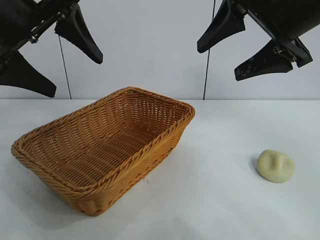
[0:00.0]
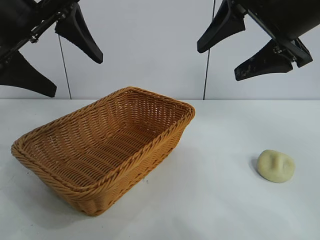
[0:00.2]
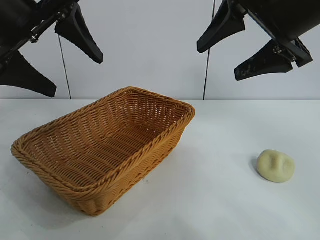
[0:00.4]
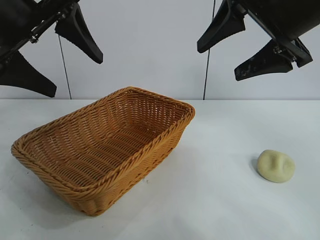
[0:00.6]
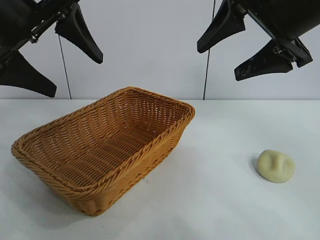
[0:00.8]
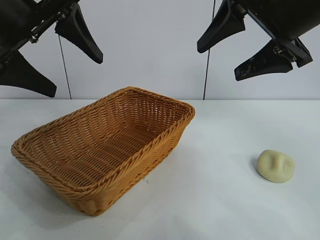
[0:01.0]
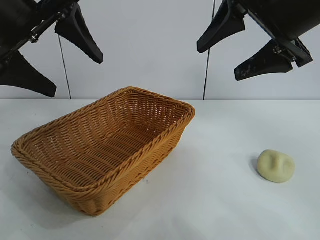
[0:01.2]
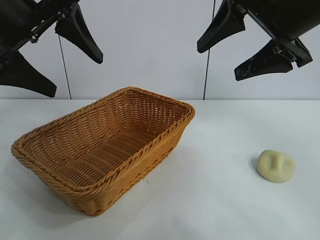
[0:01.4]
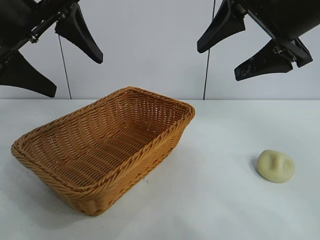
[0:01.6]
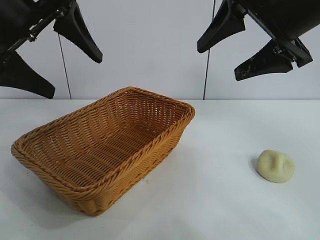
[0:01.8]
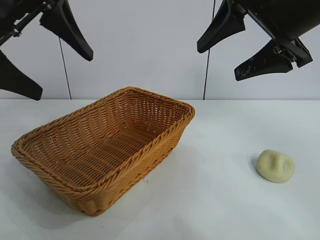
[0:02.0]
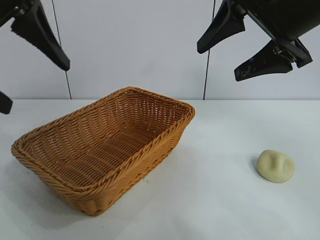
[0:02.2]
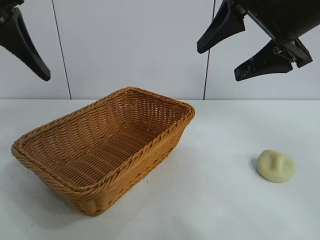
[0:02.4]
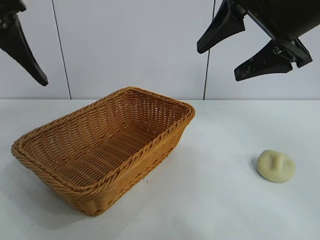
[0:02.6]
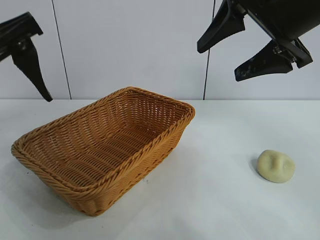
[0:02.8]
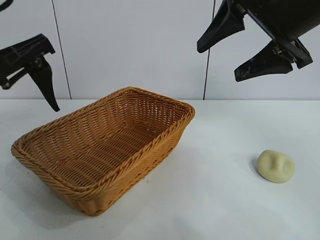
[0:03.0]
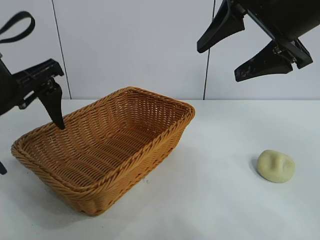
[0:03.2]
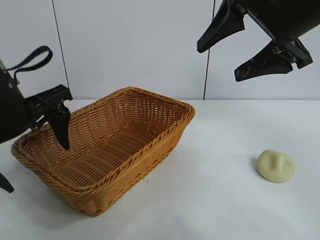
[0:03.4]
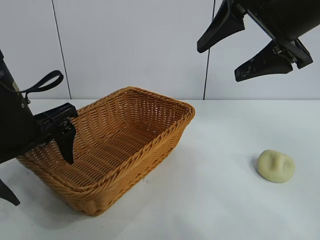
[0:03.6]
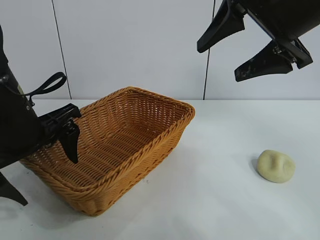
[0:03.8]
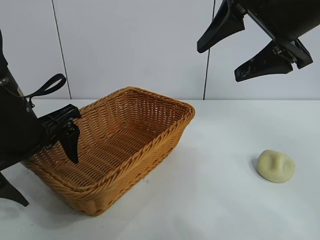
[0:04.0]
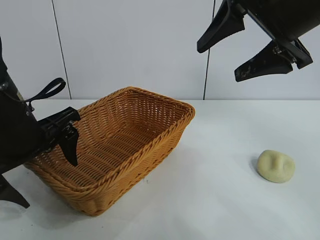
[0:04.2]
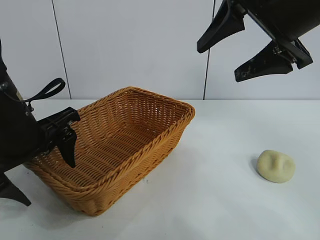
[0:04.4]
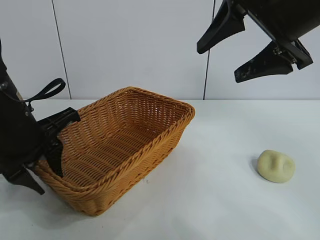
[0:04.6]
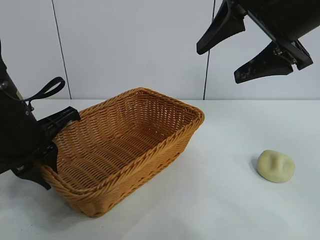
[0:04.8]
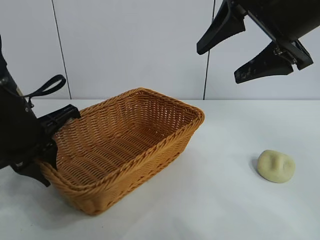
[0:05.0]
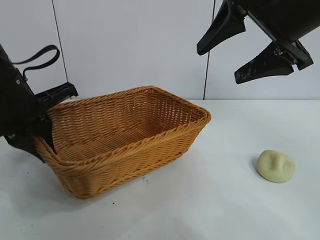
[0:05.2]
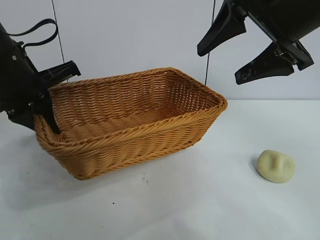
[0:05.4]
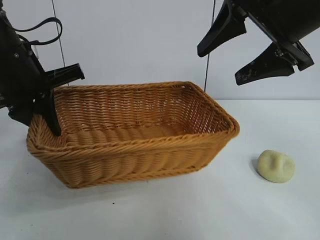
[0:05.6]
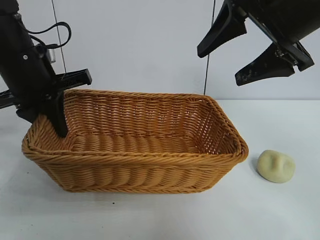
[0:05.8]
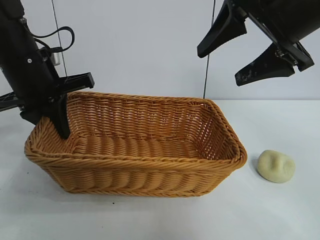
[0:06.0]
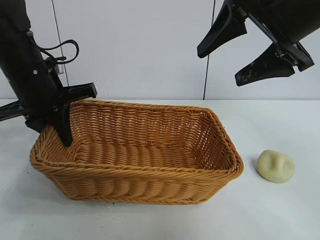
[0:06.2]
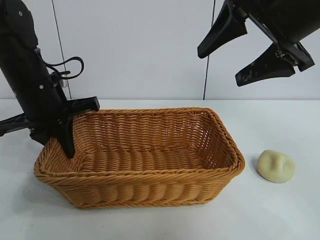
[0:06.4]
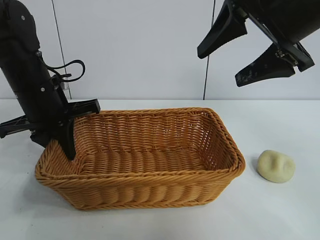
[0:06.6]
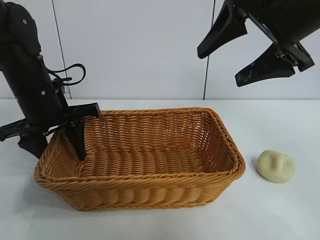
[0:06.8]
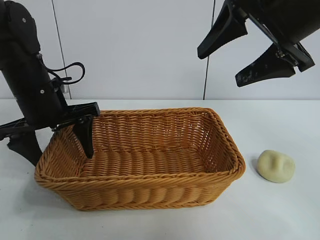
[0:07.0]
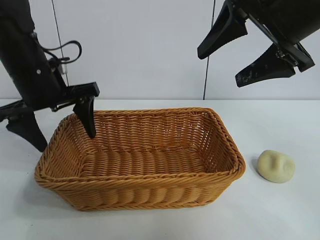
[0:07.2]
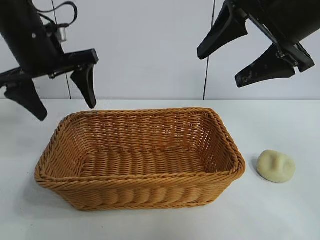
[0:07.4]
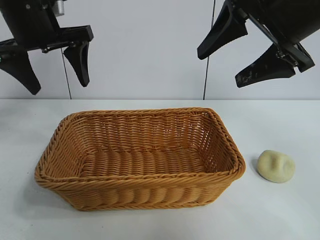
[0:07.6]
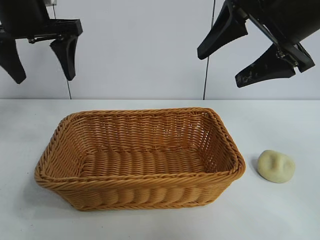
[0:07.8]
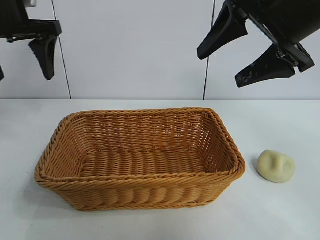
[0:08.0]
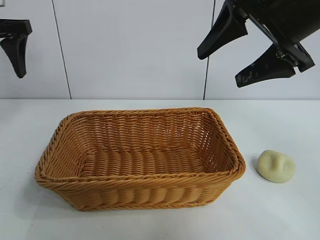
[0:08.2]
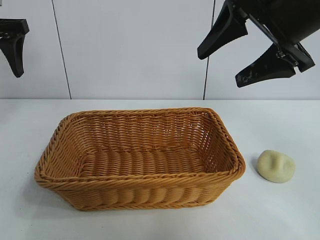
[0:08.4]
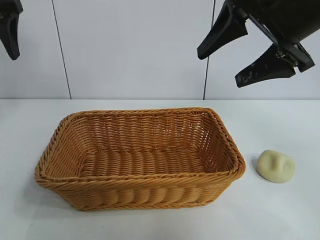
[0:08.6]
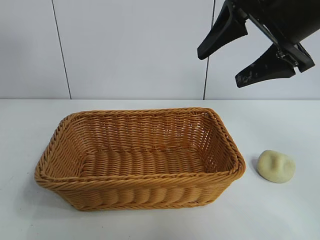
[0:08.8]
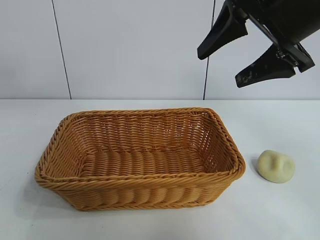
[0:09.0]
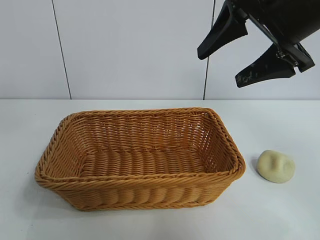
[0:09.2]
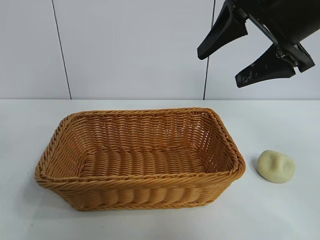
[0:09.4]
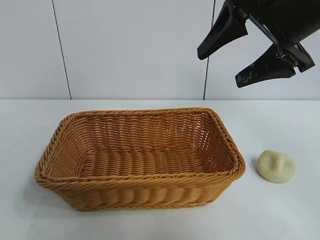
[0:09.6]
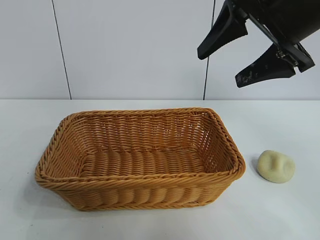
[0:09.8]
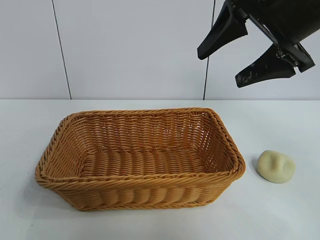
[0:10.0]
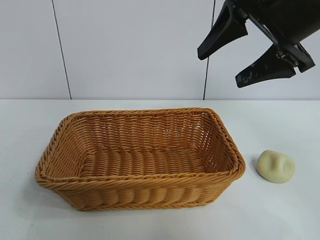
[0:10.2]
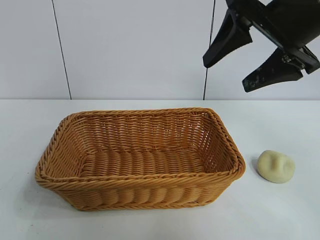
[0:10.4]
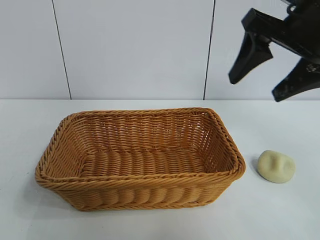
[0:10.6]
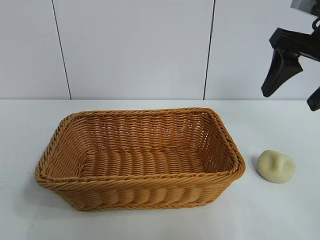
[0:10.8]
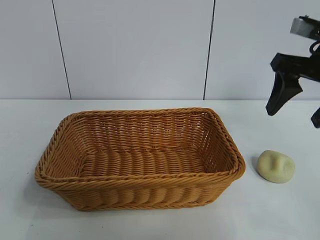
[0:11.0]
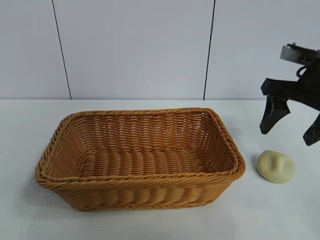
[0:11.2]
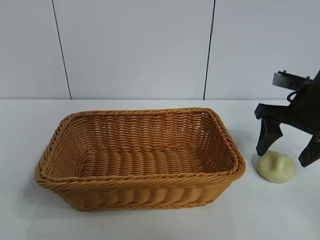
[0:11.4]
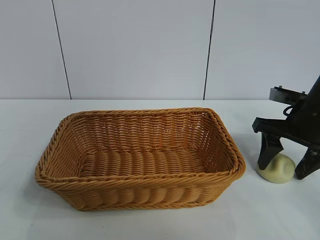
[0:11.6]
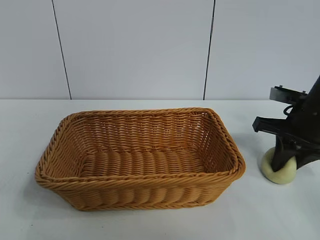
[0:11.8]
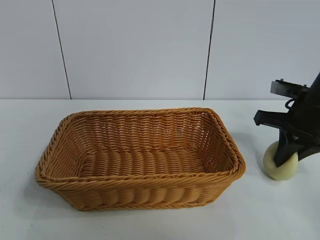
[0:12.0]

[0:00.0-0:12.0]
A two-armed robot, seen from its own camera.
Task of the whole recording: pick up the egg yolk pastry and put it into the basket.
Step, 0:01.8 to 0:04.8: Grasp the basket with left gripper.
Step, 0:05.0 to 0:07.0: Place the basket in the center of view with left gripper.
Step, 0:07.2 to 0:11.8: Grasp egg yolk pastry with right gripper.

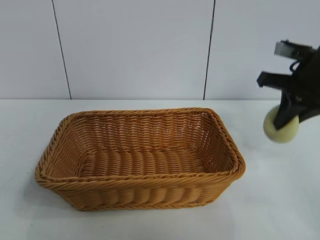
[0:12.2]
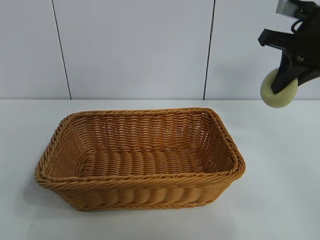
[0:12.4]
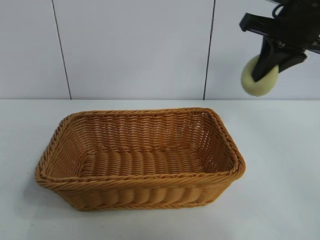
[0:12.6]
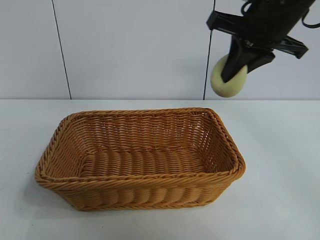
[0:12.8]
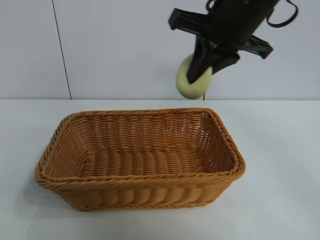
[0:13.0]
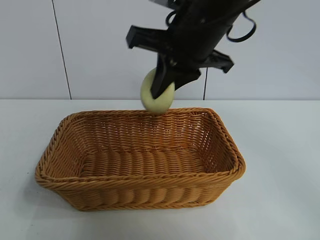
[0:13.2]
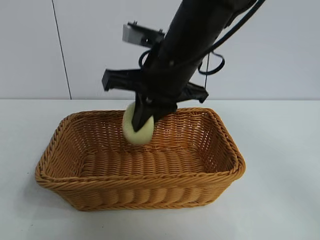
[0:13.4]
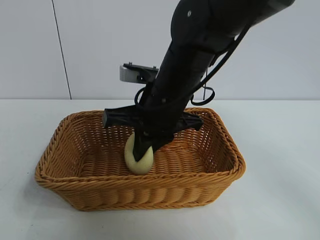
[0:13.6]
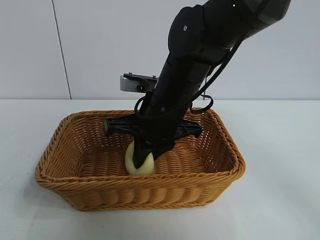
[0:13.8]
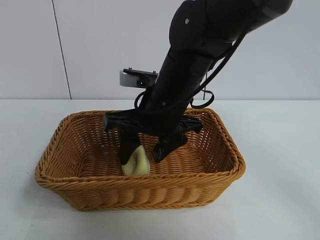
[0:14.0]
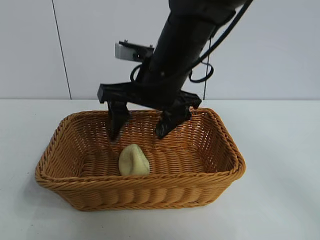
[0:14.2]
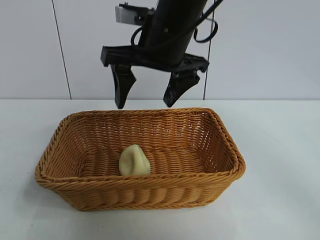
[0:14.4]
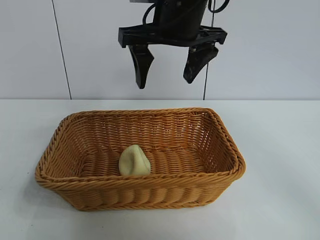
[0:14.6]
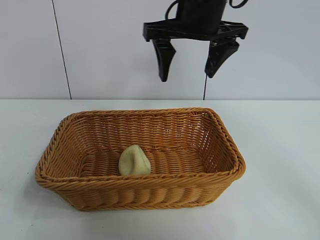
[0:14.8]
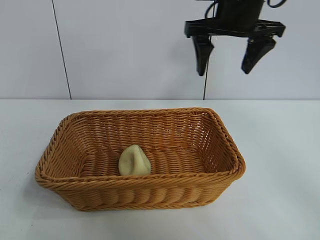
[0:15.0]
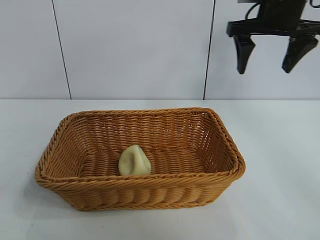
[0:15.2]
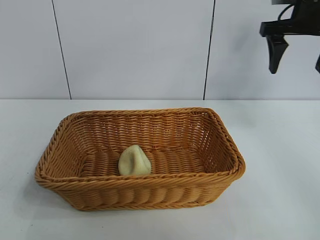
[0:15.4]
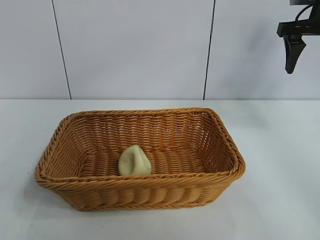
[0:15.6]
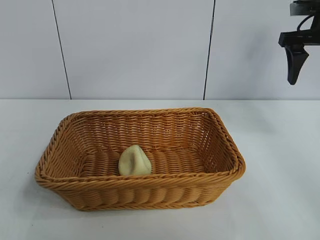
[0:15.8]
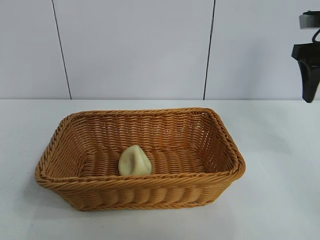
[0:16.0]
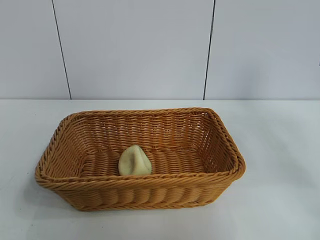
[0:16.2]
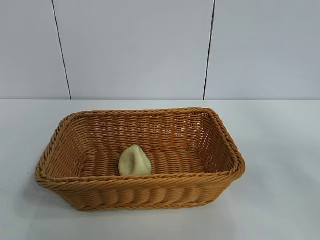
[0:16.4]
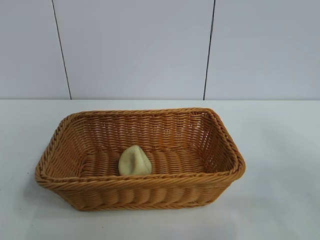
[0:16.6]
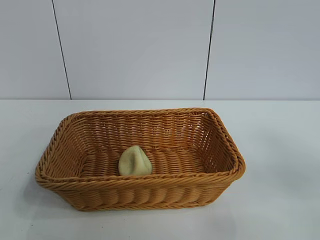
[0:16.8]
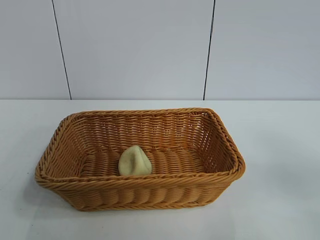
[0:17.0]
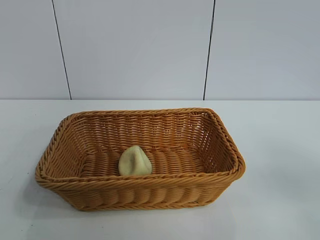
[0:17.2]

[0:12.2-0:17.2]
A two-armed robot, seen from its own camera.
Task of the whole recording: pick up the egg yolk pastry and put it into the basket.
Step, 0:12.2 to 0:14.0: Place the egg yolk pastry in the basket with right gripper.
